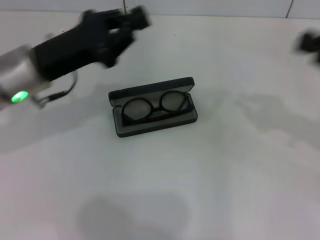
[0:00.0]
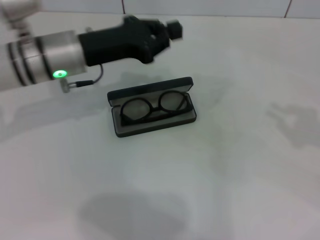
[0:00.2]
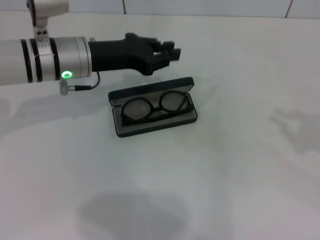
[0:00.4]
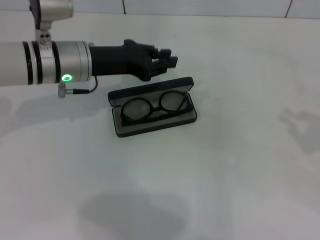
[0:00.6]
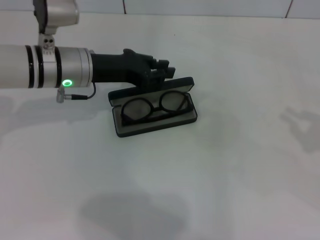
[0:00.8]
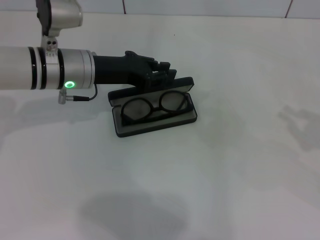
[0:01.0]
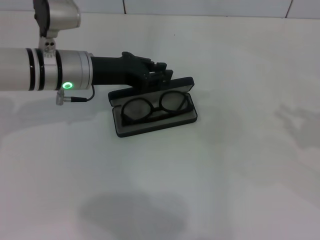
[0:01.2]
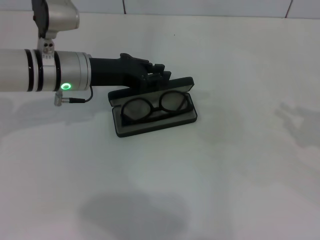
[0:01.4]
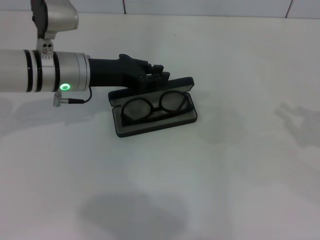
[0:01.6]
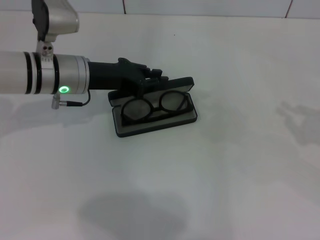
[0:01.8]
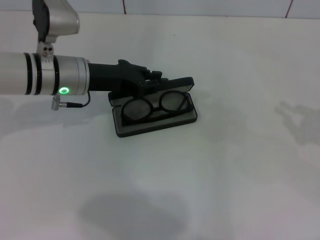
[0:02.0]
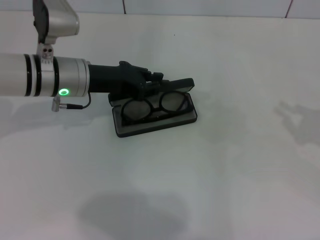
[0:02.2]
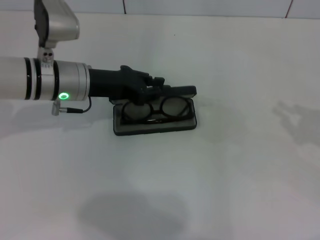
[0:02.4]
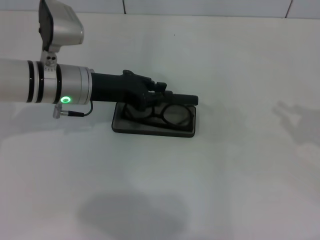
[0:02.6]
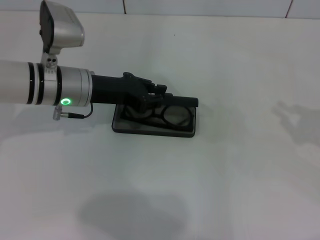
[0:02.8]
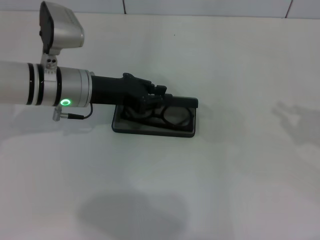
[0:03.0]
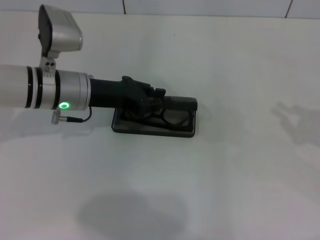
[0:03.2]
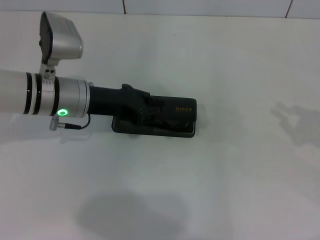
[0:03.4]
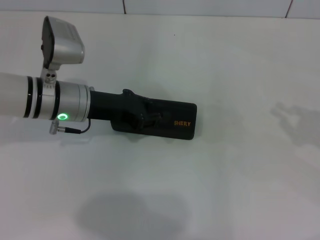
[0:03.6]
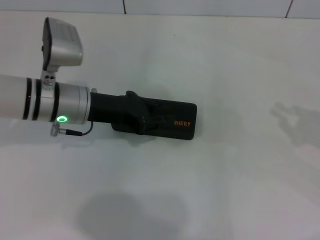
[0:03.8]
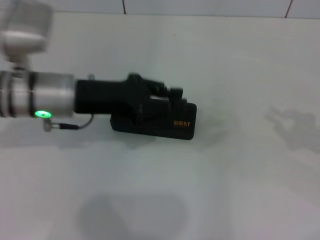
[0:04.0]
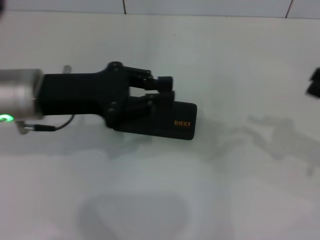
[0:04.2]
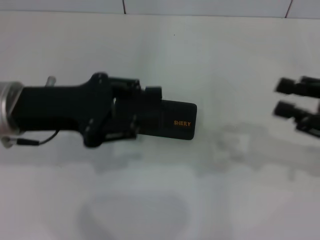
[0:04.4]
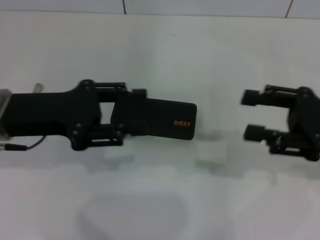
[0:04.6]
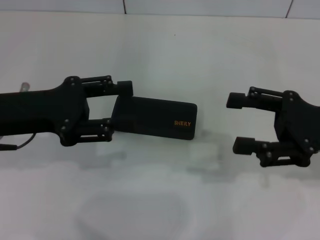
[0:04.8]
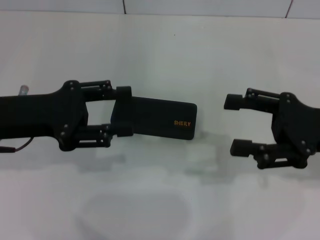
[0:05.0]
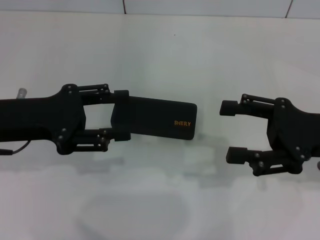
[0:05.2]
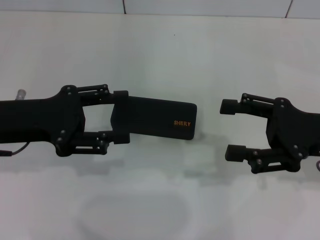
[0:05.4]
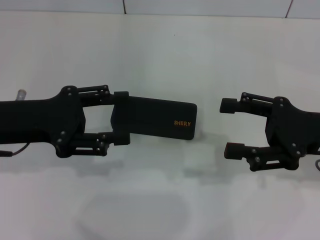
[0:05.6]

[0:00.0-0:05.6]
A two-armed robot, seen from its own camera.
Step, 0.0 to 3.4 s: Close the glasses case with your left hand.
0.0 to 1.4 s: The right gripper moves downward and to the right, approximately 10 cm; the left gripper goes about 5 cm forward.
1.4 to 2.8 s: There are only small adjustments of the grippers.
2.8 to 4.2 s: The left gripper heads backward and upward, covering some 10 cm.
4.2 to 5.6 s: The right gripper travels to the left by about 10 cm, and opens its fingers, while the left gripper is displaced to the left by some 5 cm, and opens.

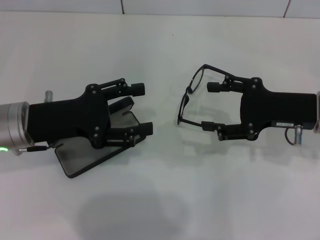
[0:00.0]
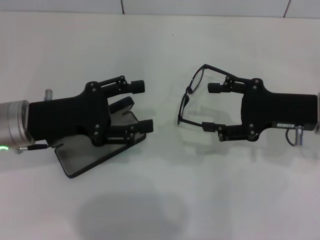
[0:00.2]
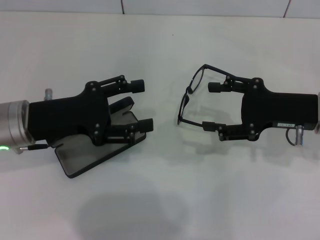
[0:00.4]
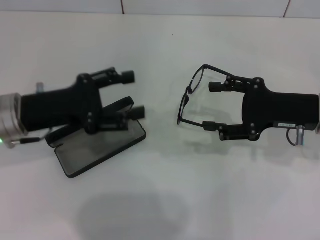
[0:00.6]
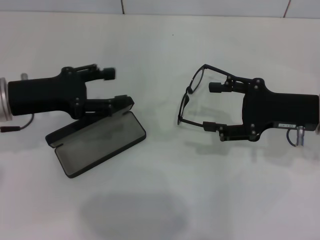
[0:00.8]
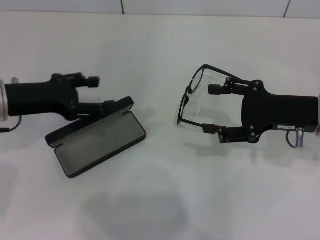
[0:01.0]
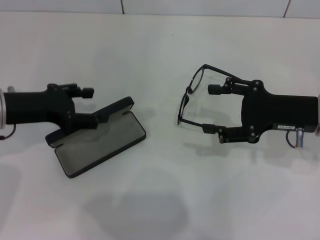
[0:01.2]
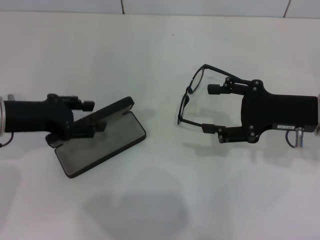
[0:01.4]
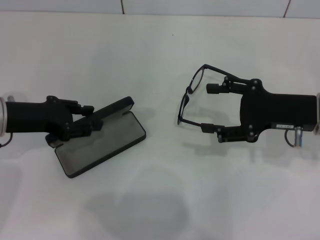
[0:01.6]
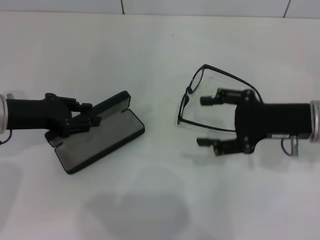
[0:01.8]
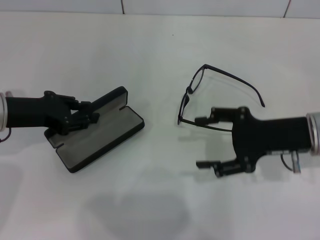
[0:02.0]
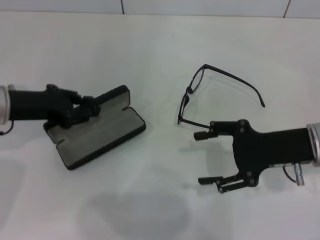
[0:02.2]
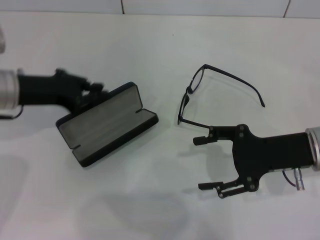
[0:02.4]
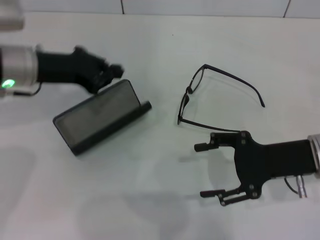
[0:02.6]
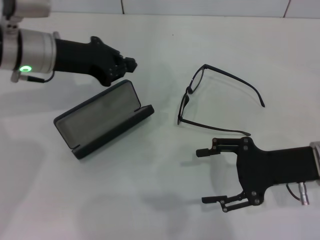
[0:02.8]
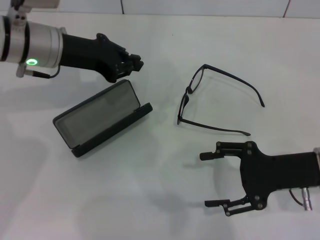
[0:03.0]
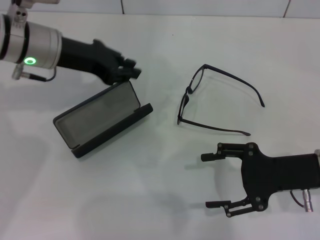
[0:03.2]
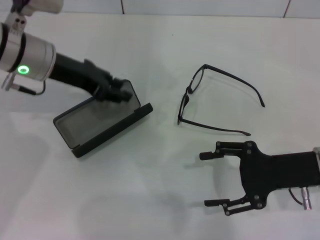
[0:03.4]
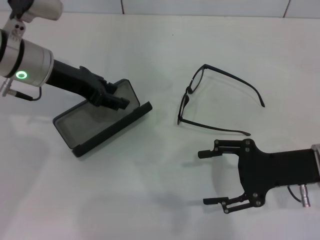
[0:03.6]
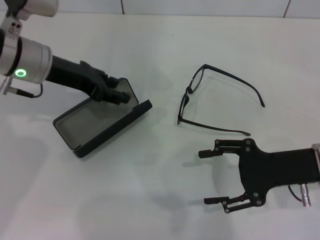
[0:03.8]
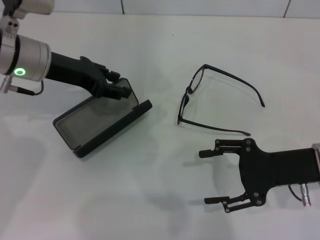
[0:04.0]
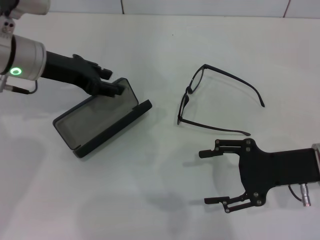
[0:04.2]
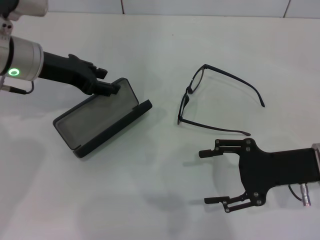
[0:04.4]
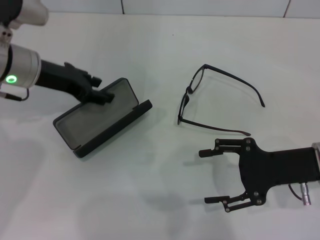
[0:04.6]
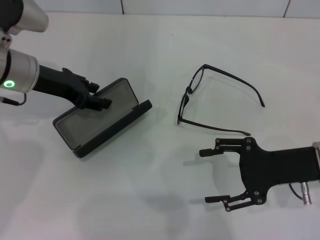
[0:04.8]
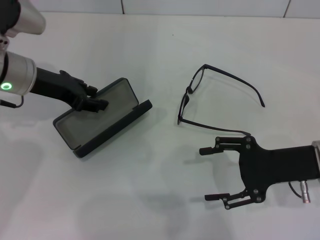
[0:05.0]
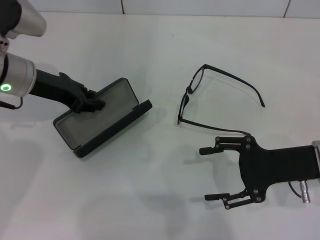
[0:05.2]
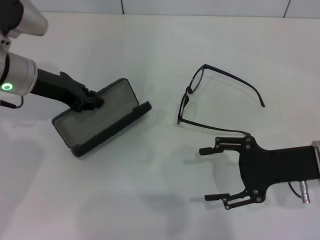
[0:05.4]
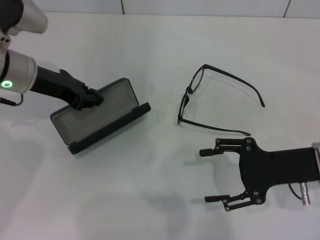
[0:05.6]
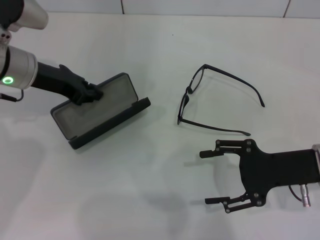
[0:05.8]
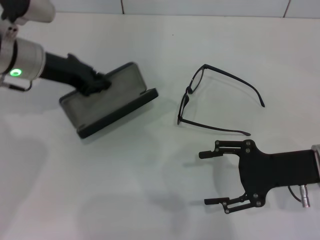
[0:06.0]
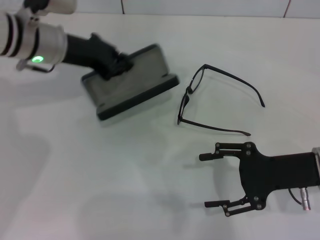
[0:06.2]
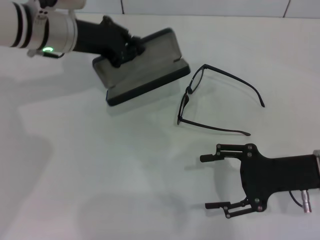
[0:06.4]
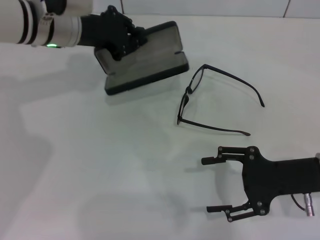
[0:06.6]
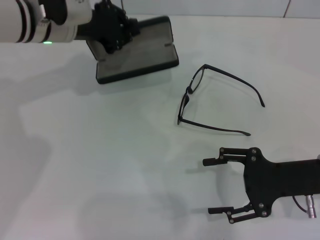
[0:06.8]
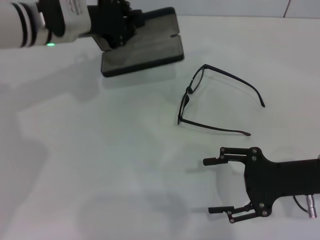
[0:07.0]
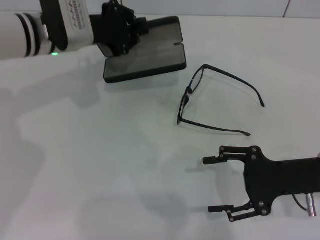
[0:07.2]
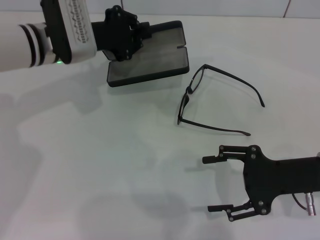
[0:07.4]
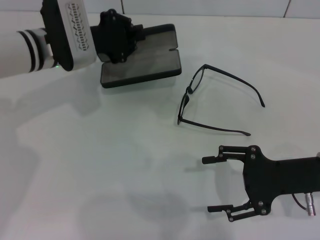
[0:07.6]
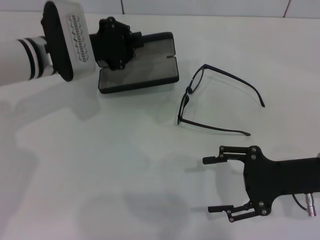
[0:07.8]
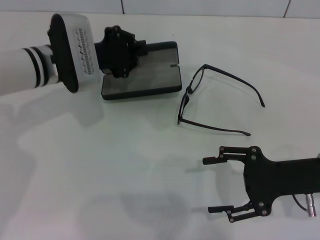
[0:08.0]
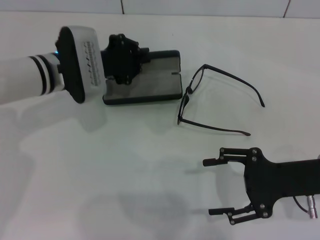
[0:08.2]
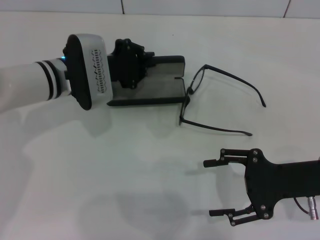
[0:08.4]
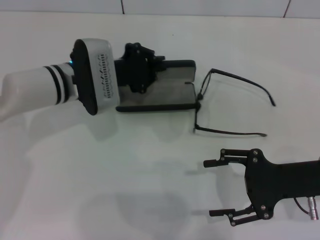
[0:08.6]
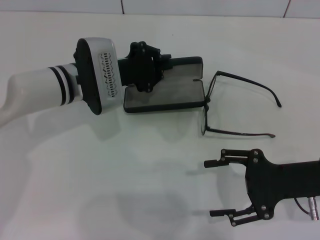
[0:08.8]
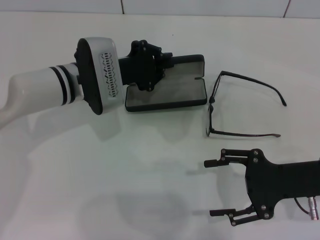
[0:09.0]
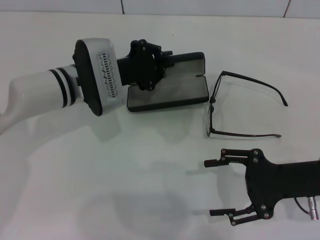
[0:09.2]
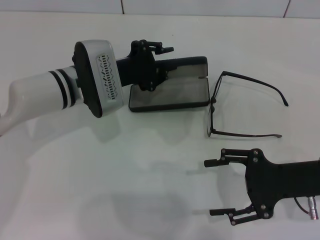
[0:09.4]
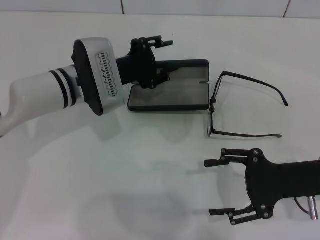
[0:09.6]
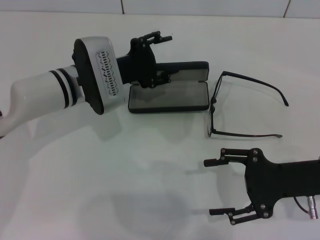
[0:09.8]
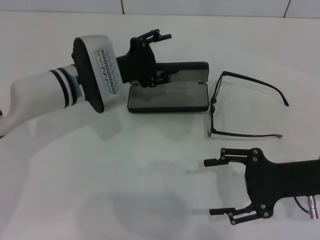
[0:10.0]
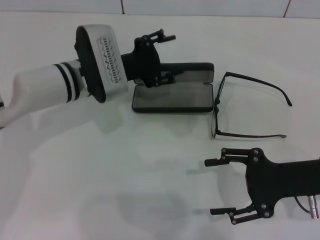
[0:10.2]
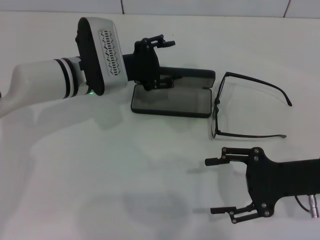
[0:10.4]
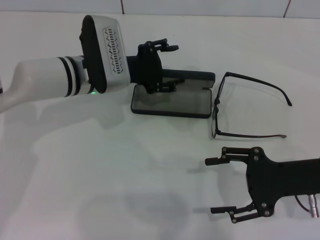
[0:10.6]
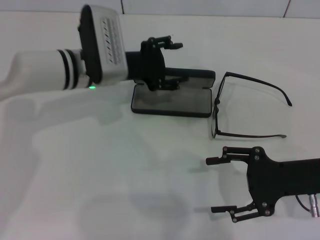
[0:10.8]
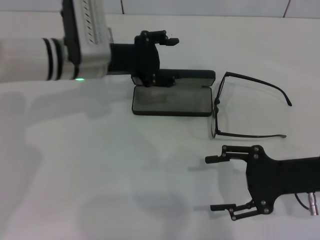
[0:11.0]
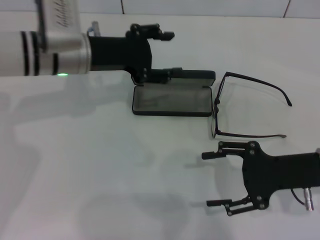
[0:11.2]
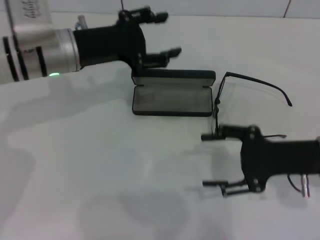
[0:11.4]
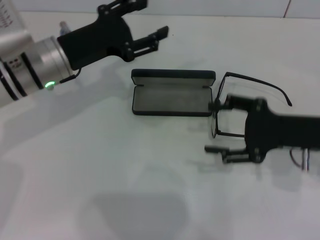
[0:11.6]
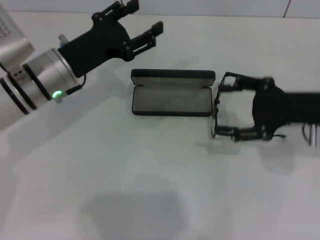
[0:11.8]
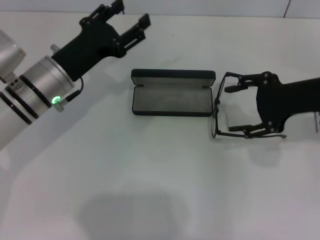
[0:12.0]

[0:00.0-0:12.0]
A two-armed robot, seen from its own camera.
Step, 0.0 to 5.2 s: Grab the glasses case with your left hand.
Step, 5.4 to 10.0 s: Place the glasses case in the center of the table with your left hand.
0.0 to 1.6 s: The left gripper changes place by about 5 cm.
1.6 to 3.0 s: The left gripper moves forward, to the right and upward, approximately 10 cm, and closes its fingers. Meanwhile the right gripper travels backward by some 5 cm.
3.0 to 4.4 s: The left gripper opens.
4.4 to 6.0 s: The left gripper closes up.
6.0 to 7.6 s: The left gripper shifts by approximately 5 cm.
7.6 to 9.0 s: The left gripper shifts by roughly 5 cm.
9.0 to 10.4 s: The left gripper opens its fingers.
10.4 to 12.0 s: The right gripper goes some 10 cm upward and forward; the left gripper shifts some 5 cm to the left and backward.

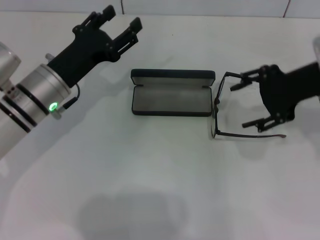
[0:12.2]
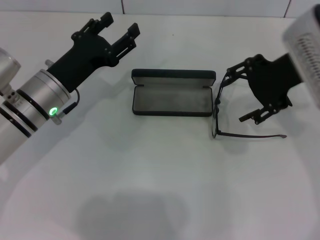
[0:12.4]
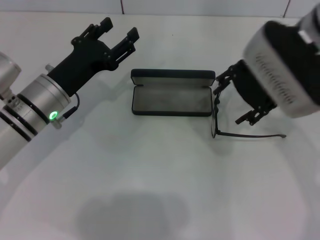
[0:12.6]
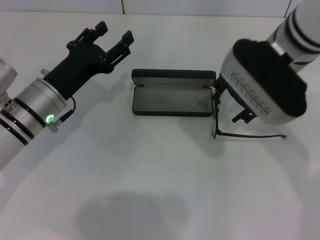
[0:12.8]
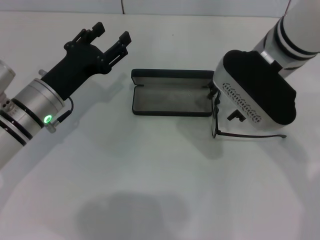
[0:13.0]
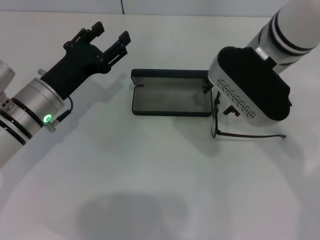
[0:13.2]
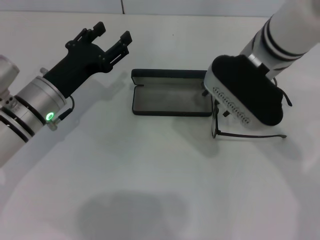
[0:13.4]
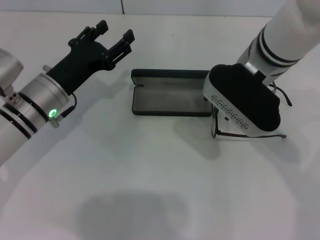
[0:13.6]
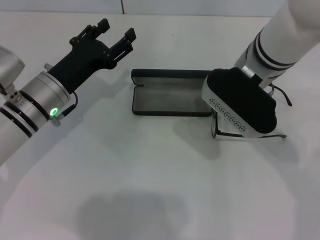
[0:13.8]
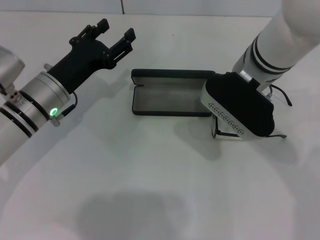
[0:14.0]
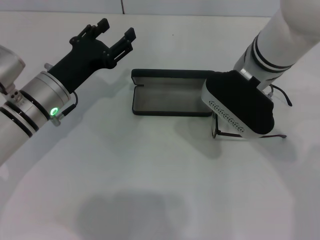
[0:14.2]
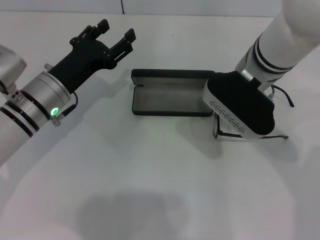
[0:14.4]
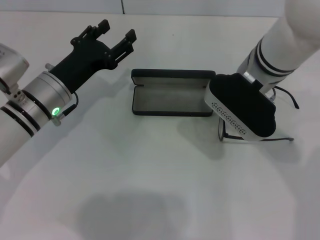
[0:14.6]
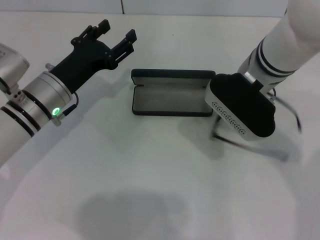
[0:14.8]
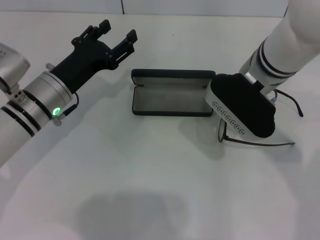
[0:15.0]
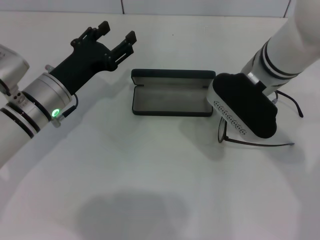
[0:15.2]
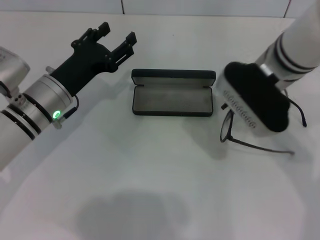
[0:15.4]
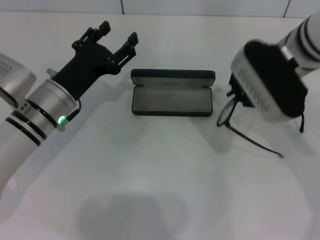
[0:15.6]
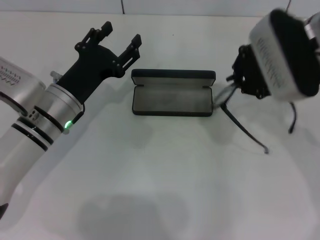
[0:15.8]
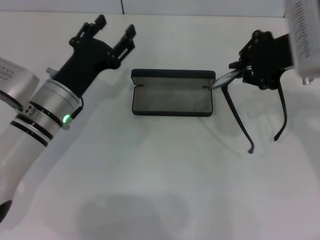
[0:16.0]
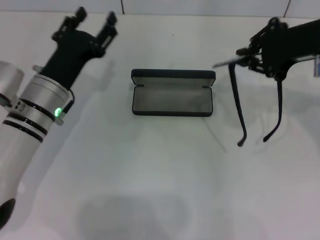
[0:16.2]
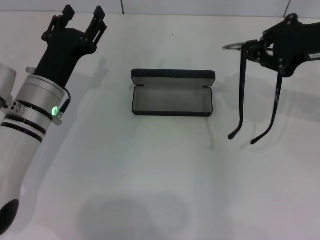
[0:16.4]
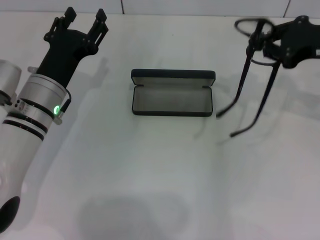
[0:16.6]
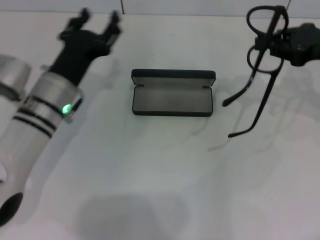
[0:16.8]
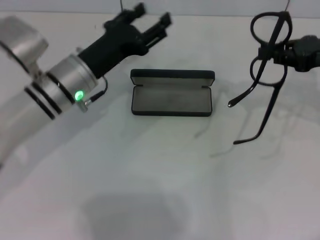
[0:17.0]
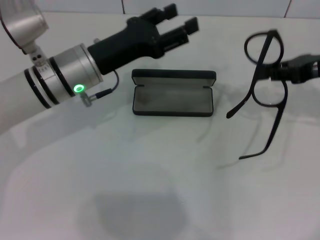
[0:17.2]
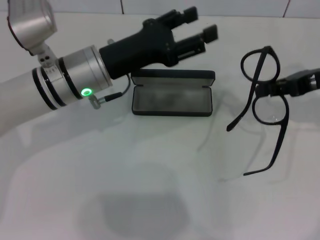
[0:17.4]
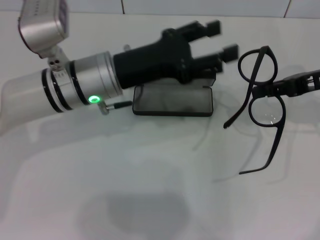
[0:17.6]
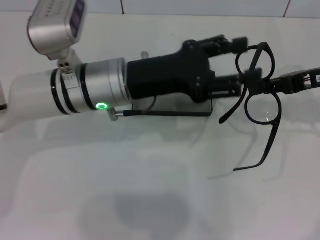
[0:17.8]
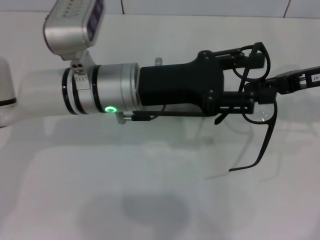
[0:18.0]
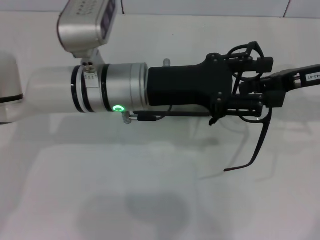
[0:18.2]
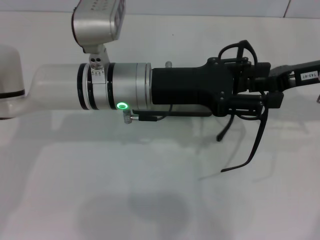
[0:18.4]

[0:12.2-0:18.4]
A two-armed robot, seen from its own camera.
Step, 12.2 to 14.8 s: Grab the eyeglass frame with your right hand.
12.2 to 13.8 s: The right gripper goes about 10 cm to the left.
13.8 to 15.4 s: The right gripper closes up.
15.4 to 16.8 s: The right gripper goes about 15 cm to the right.
16.8 to 18.4 s: The left gripper shifts approximately 10 cm to the right and upward.
